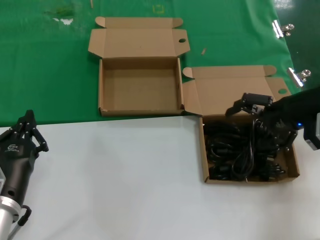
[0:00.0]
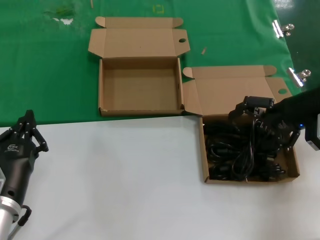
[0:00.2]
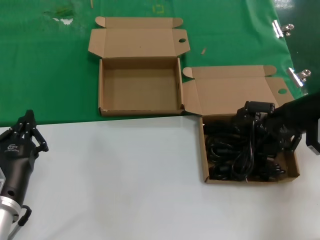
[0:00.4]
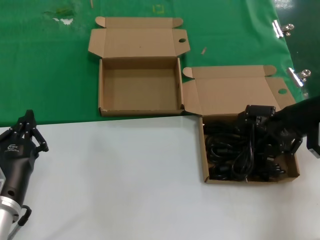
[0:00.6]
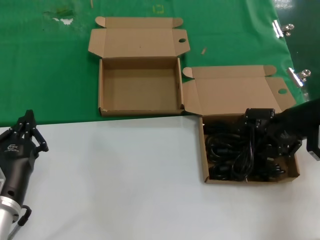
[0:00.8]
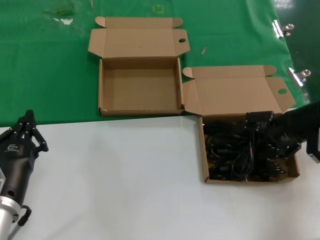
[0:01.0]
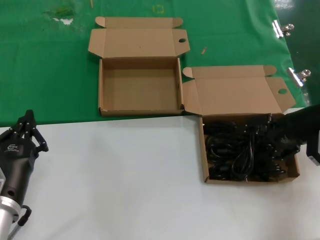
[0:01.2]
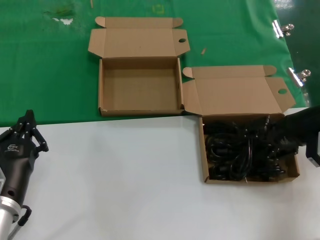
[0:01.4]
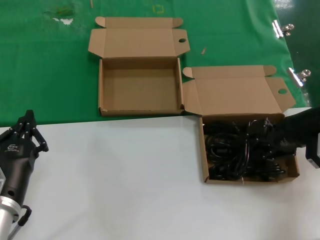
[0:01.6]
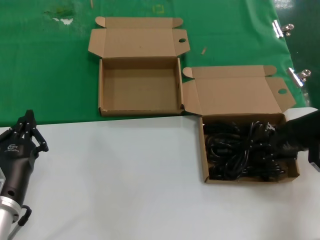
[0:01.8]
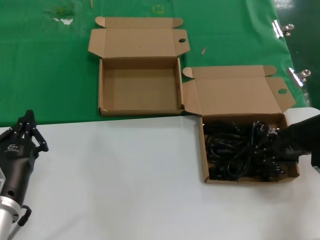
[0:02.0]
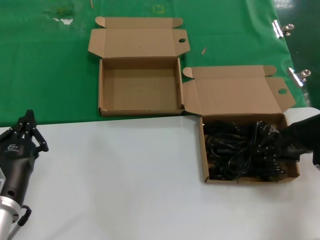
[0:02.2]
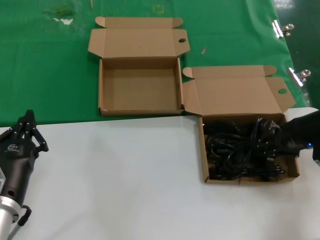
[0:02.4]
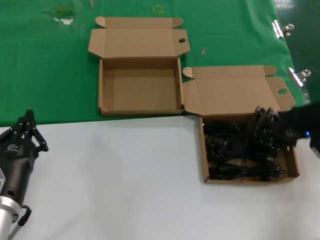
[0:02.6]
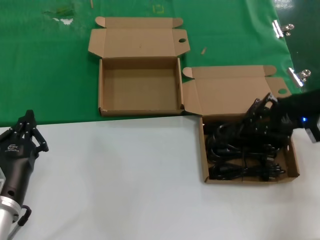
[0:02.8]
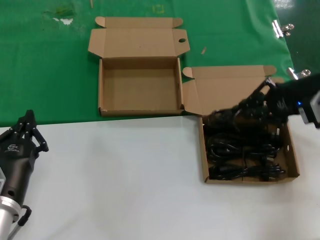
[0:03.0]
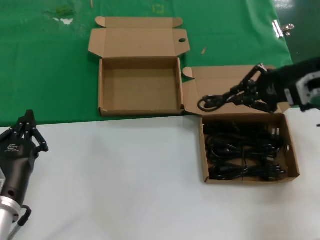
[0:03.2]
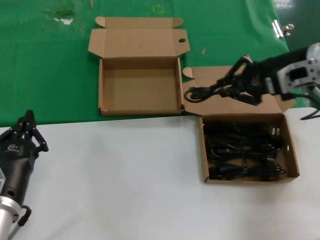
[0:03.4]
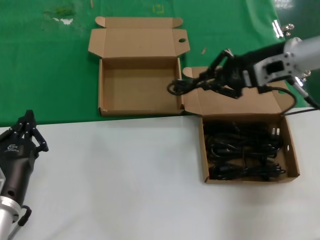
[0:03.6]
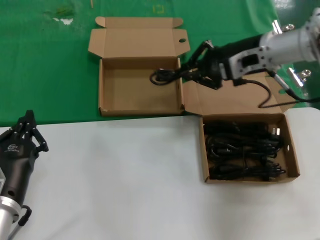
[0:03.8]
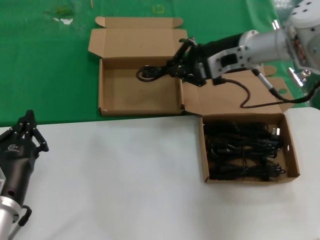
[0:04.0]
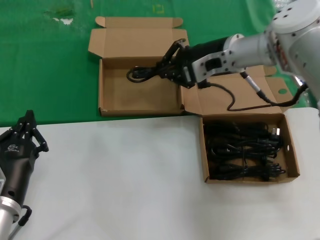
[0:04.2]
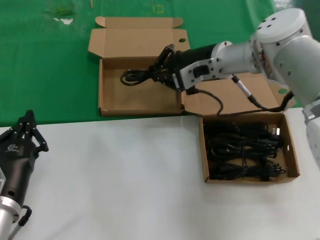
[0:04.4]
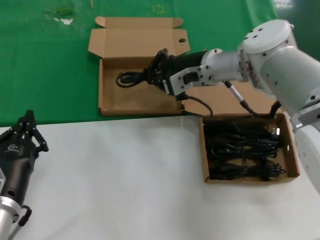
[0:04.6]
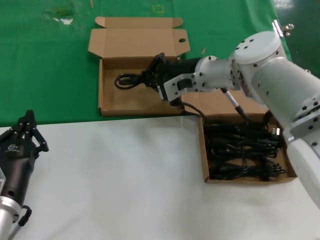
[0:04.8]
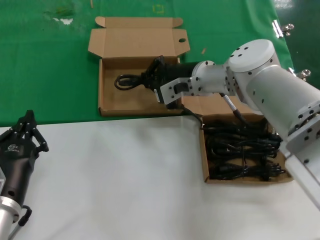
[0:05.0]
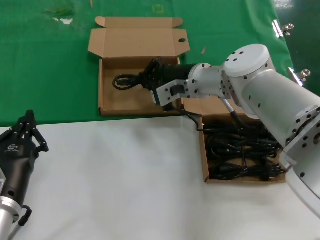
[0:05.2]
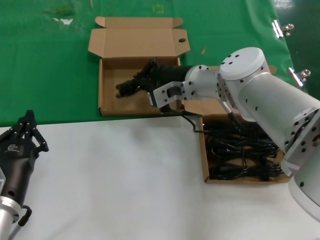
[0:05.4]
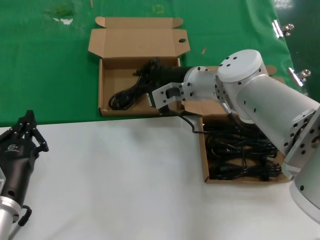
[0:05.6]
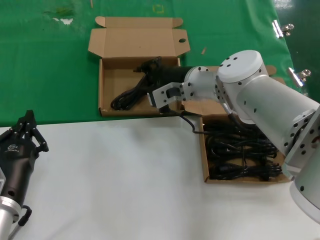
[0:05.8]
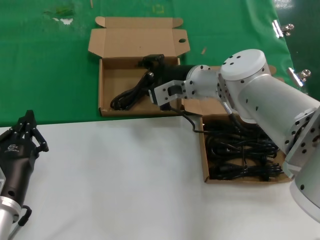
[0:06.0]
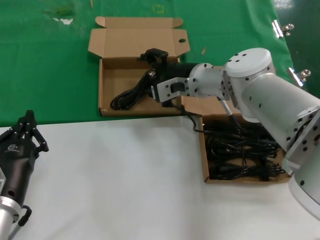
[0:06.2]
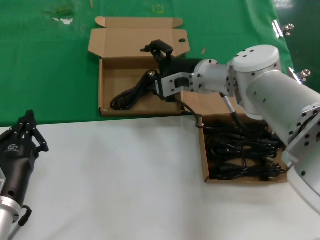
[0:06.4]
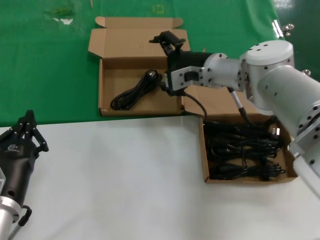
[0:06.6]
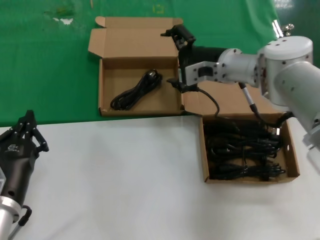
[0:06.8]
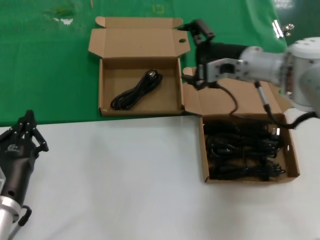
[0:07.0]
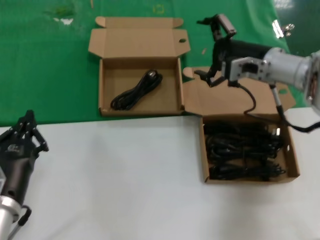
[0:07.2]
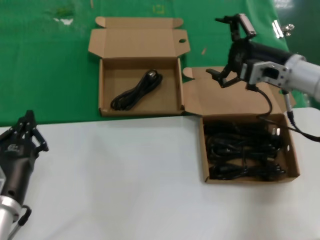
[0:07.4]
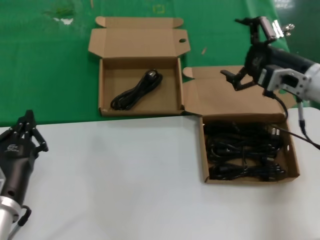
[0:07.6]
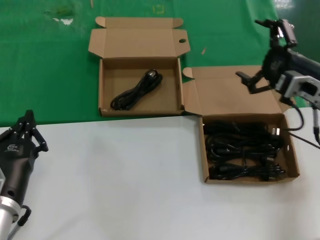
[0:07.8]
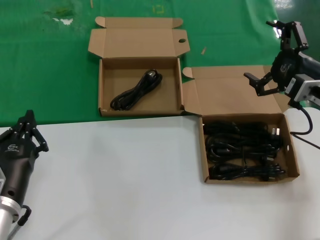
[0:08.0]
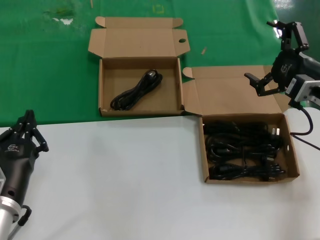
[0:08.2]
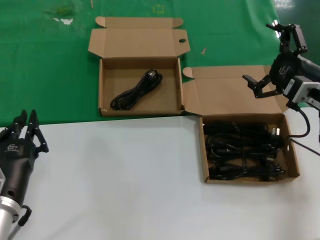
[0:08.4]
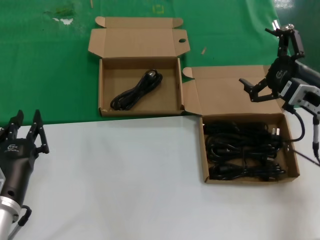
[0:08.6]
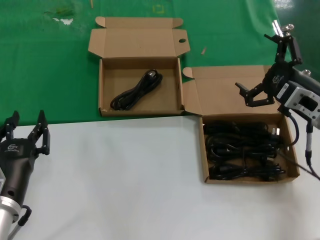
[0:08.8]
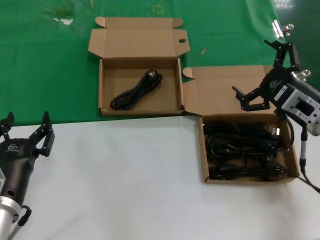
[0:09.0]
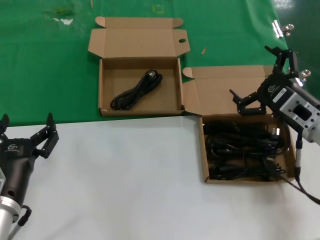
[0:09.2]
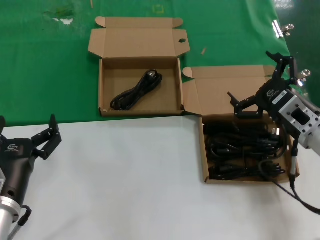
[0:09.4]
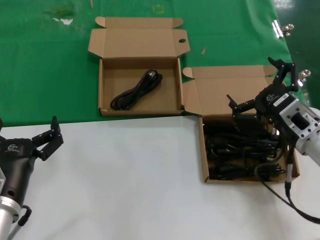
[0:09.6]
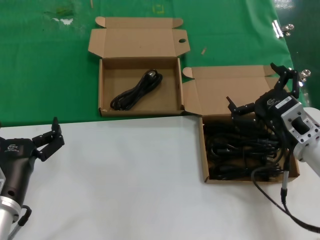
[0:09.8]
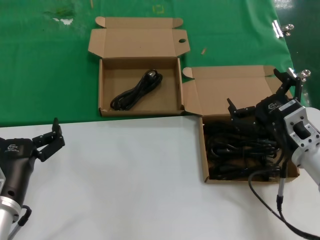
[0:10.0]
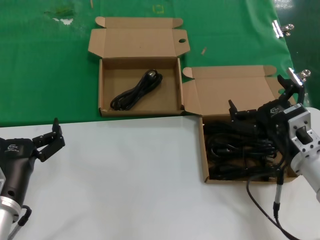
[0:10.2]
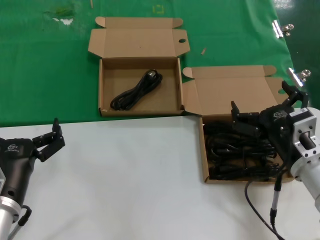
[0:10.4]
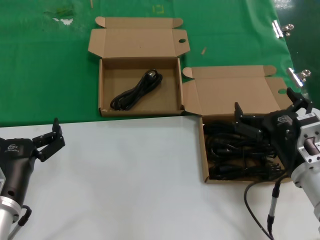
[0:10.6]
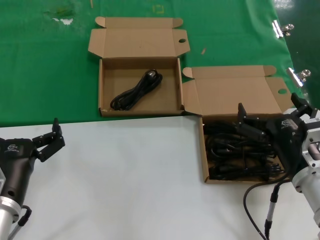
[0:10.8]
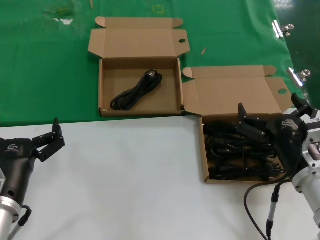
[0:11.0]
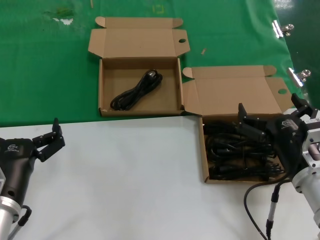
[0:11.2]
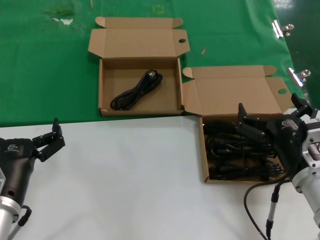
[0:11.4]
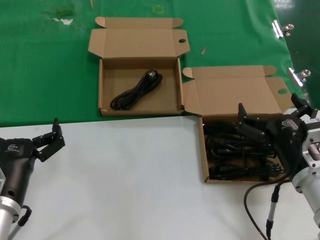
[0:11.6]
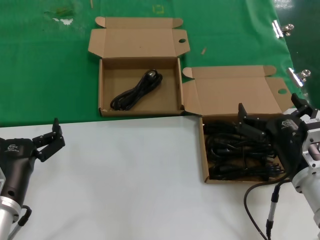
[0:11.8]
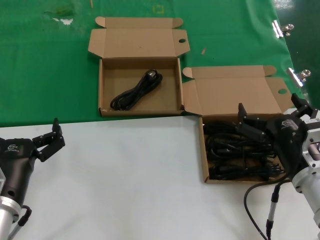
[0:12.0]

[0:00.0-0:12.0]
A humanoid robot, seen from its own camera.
Task of the whole recording: take the parts from the box containing them and put them into an empty box.
Step, 0:00.0 to 0:02.2: Grasp the data cable.
Step, 0:02.4 to 0:05.6: Place the data cable in the another box.
0:00.0 to 0:01.6: The hands move only a little.
0:01.6 to 0:03.0: The right hand travels upward by about 5 cm.
0:03.0 to 0:04.4: The right hand shifts roughly 20 cm to the left and forward.
0:04.4 to 0:06.0: The right hand heads downward and to the left, covering roughly 10 cm.
0:06.0 to 0:07.6: The right hand goes roughly 20 cm to the right.
0:07.6 to 0:09.0: The right hand shifts roughly 10 cm backward.
0:09.0 to 0:10.4: The right hand shifts some 10 cm backward, to the left and downward.
0:10.4 to 0:12.0: The hands move only a little.

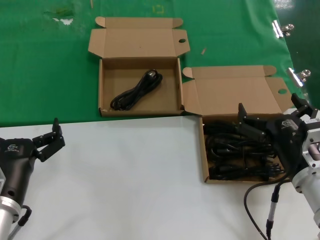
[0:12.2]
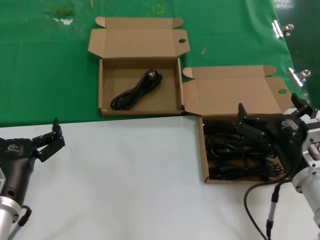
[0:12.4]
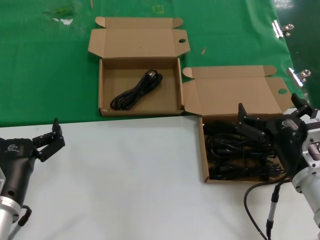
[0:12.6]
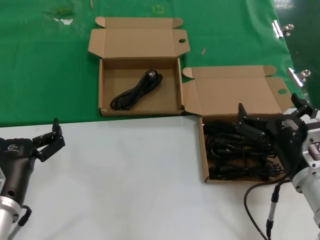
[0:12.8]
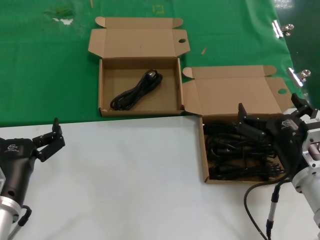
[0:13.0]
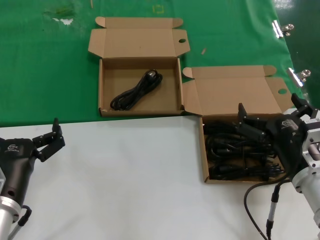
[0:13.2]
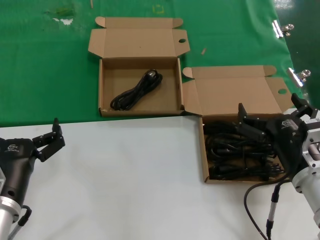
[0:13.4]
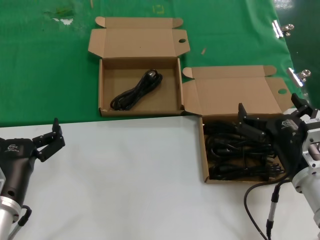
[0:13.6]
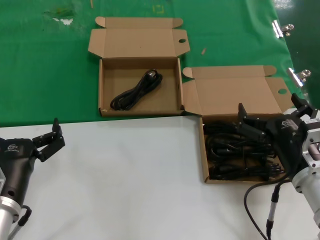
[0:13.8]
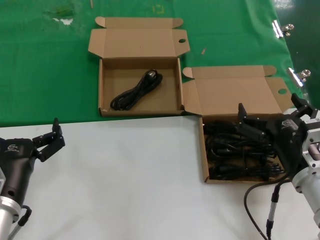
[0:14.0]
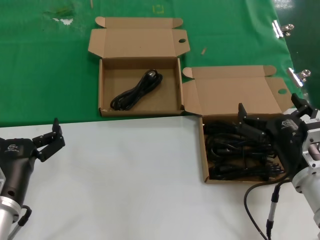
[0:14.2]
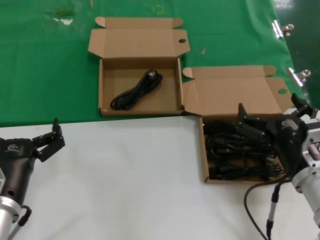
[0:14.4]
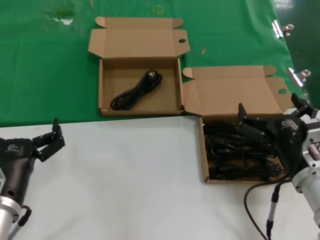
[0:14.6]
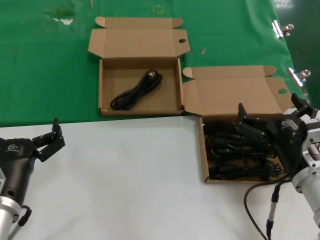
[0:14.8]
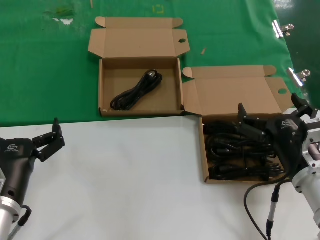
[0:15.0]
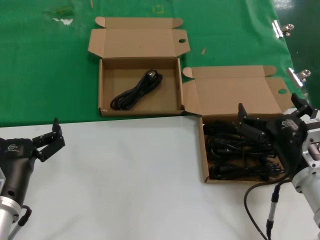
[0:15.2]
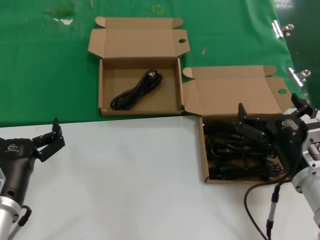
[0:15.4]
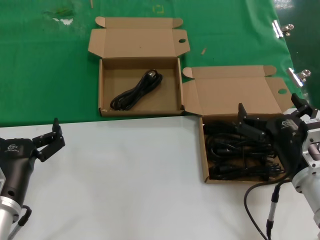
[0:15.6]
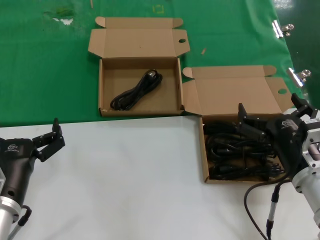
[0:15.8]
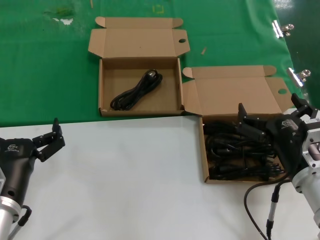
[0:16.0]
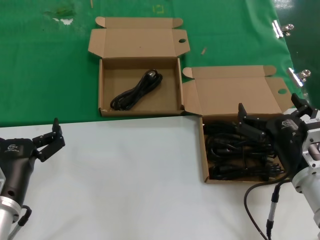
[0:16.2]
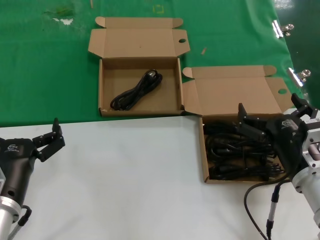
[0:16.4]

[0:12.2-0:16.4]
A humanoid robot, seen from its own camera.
Task of the whole recording: take the parts from the box containing them and put them into an empty box.
0:12.2 to 0:16.4: The two hands keep their place.
